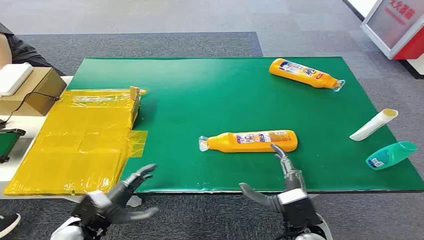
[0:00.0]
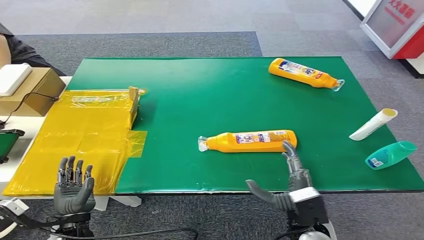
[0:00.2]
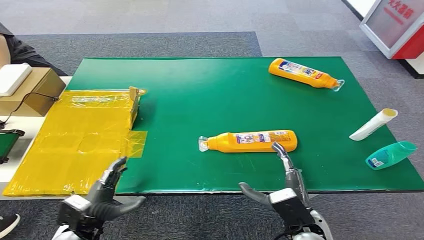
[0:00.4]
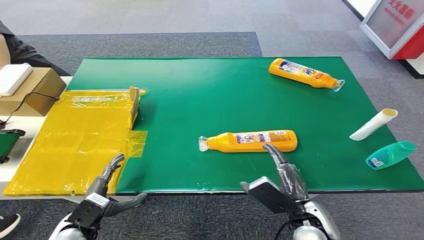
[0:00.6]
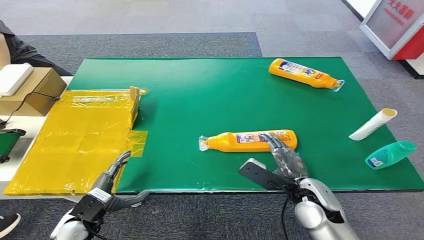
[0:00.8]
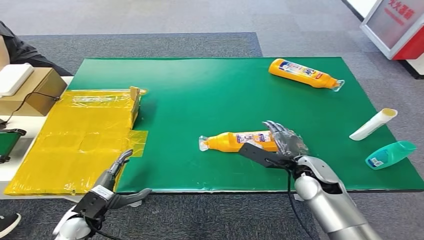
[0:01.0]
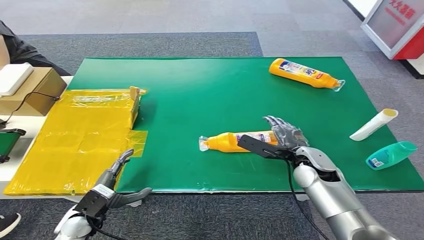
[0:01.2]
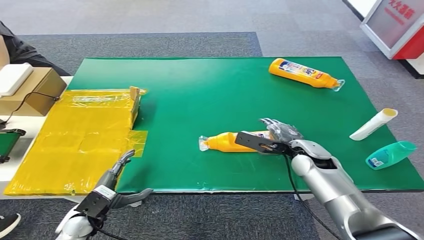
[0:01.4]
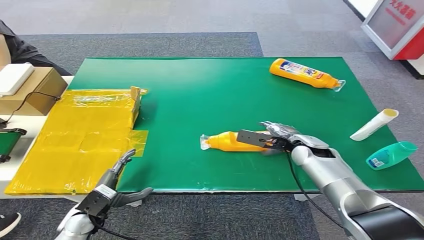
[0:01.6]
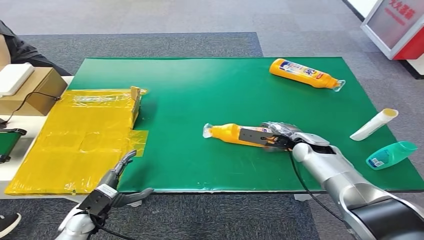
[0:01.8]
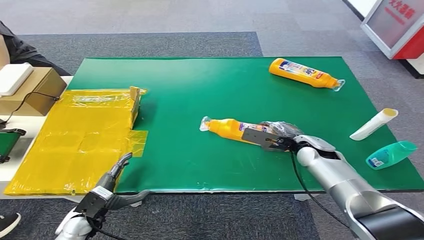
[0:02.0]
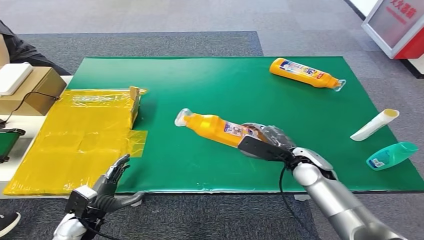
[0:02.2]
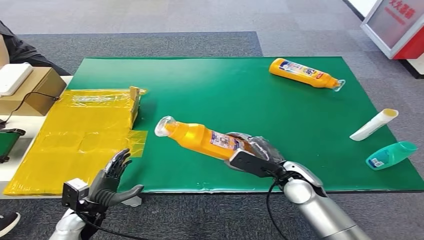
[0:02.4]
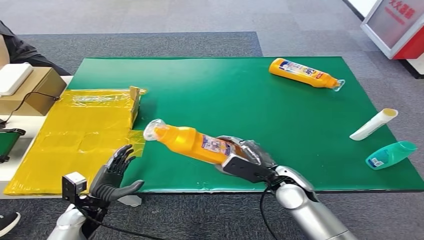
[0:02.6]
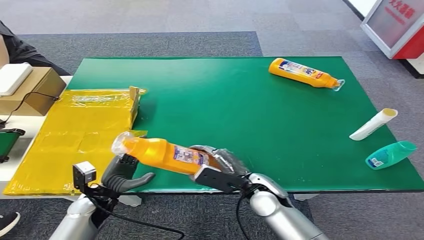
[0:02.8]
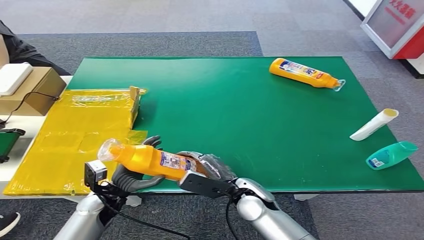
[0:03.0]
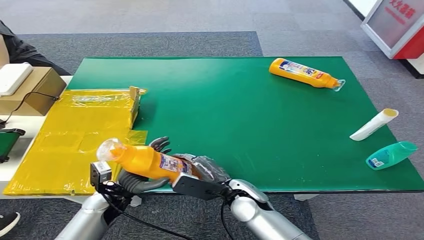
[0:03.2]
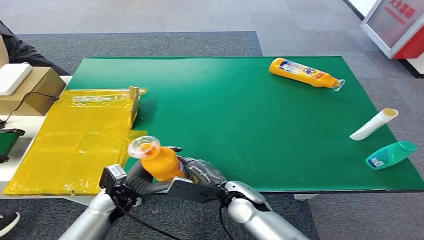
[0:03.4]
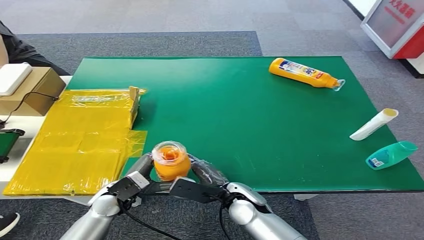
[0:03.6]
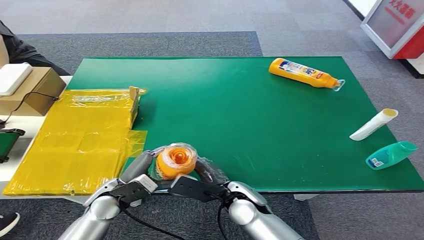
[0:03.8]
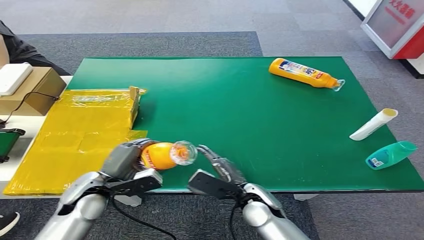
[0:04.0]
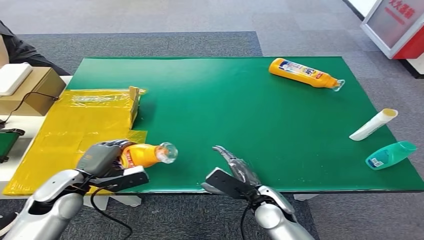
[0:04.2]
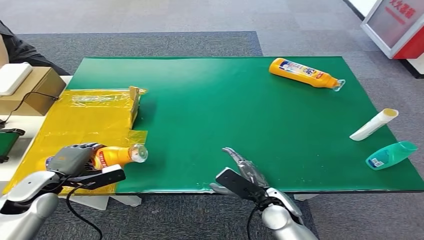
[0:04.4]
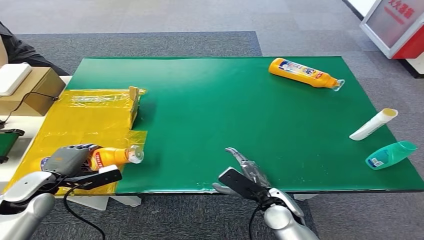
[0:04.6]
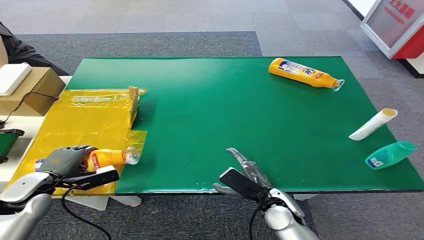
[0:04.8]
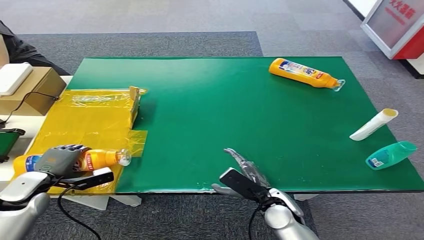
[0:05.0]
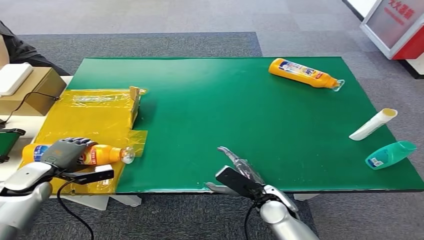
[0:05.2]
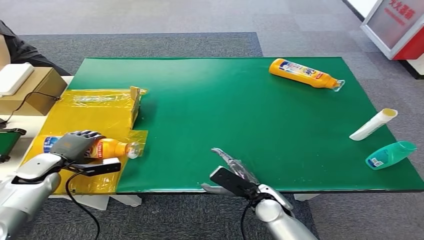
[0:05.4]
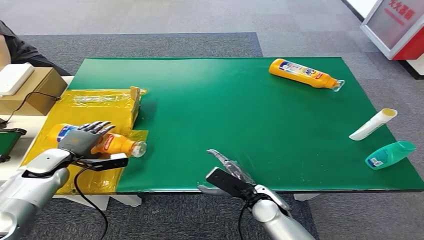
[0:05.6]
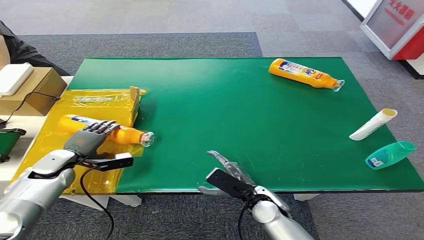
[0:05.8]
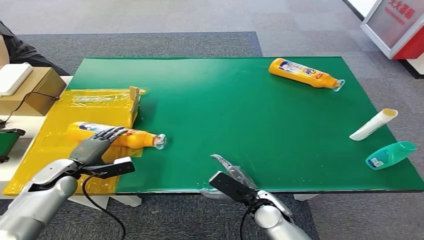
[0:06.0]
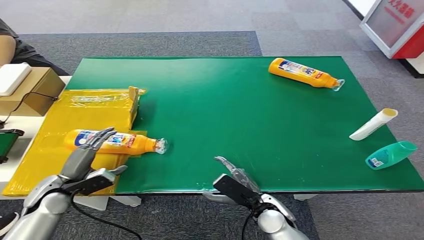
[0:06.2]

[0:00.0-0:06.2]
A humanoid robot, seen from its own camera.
Step, 0:00.0 to 0:02.4: Pick up the bottle from the table.
Step, 0:02.6 to 0:06.2: Turn the bottle to the front side.
0:01.6 to 0:03.2: The right hand shifts approximately 20 cm to the left and backward. The left hand moves to the right, about 5 cm.
0:03.2 to 0:04.6: The right hand moves to the right, roughly 10 cm; the left hand shifts roughly 15 cm to the left and upward.
0:04.6 to 0:06.2: The left hand reaches some 10 cm forward, then returns.
